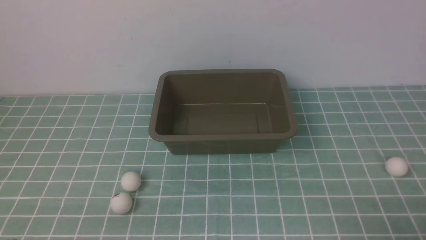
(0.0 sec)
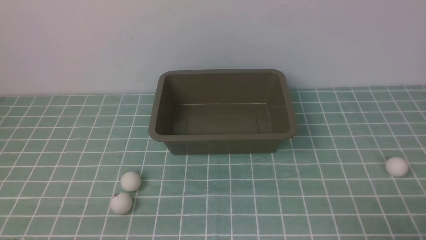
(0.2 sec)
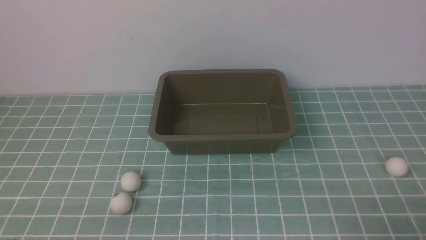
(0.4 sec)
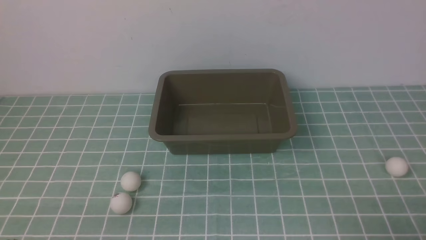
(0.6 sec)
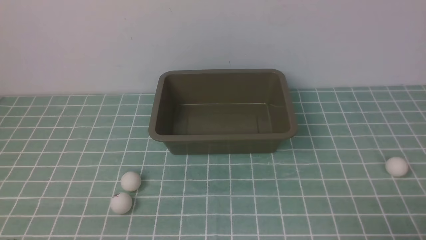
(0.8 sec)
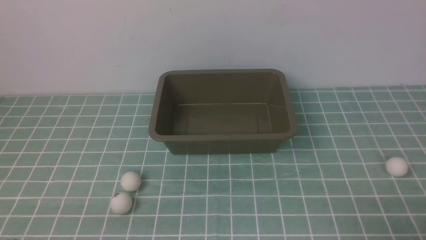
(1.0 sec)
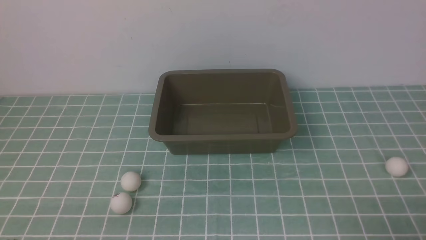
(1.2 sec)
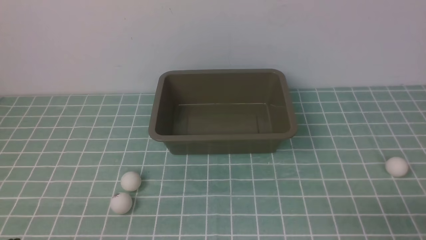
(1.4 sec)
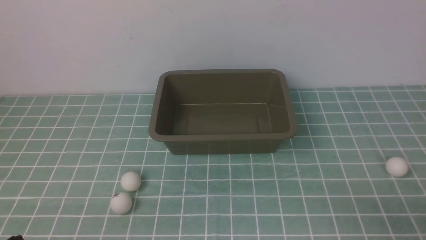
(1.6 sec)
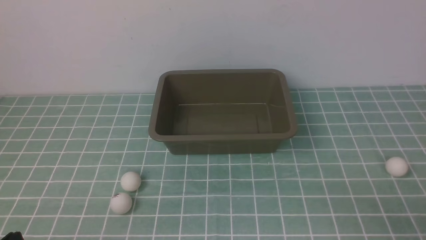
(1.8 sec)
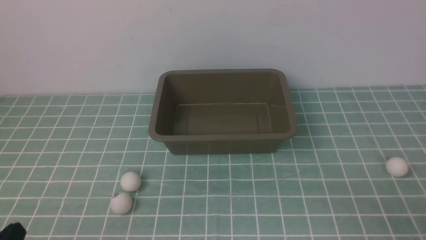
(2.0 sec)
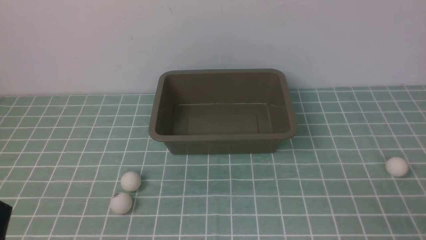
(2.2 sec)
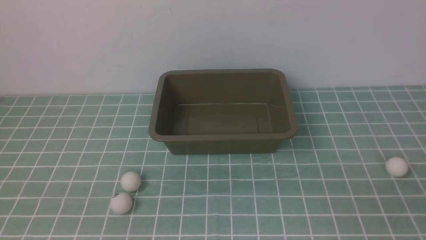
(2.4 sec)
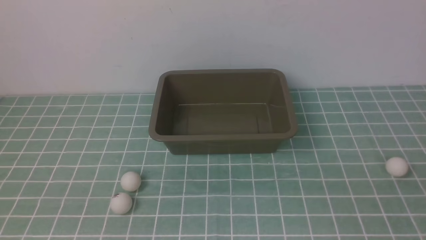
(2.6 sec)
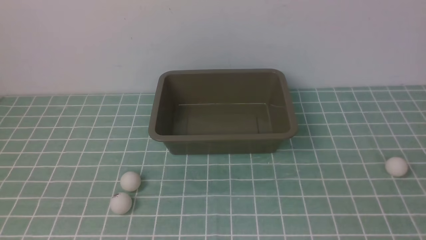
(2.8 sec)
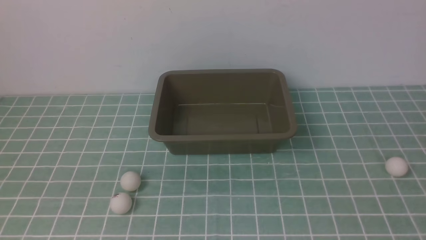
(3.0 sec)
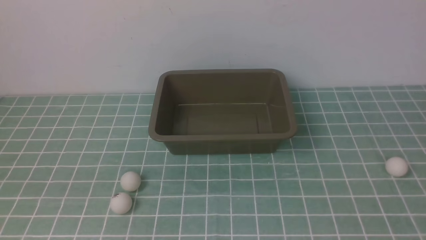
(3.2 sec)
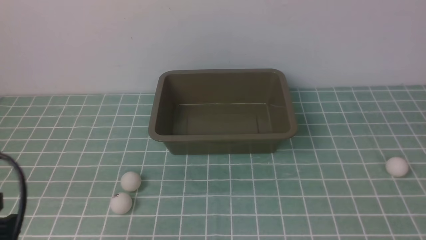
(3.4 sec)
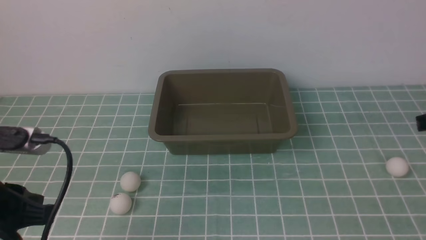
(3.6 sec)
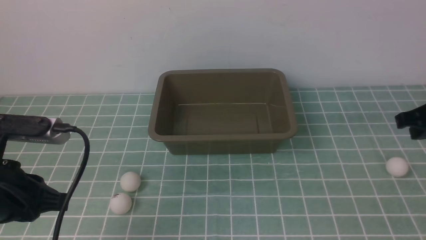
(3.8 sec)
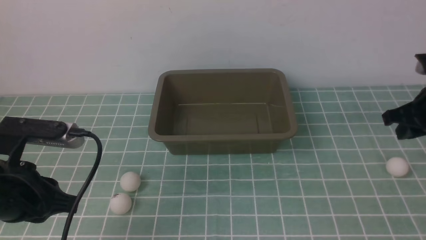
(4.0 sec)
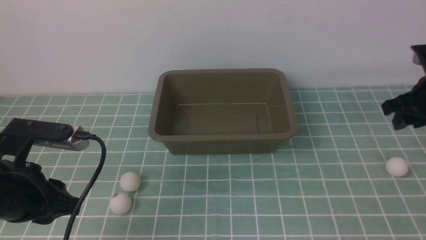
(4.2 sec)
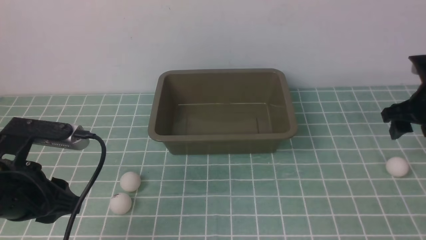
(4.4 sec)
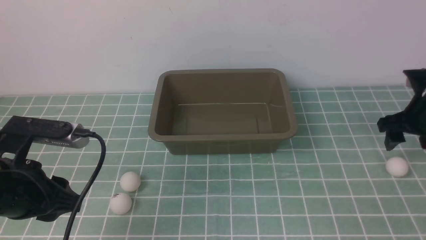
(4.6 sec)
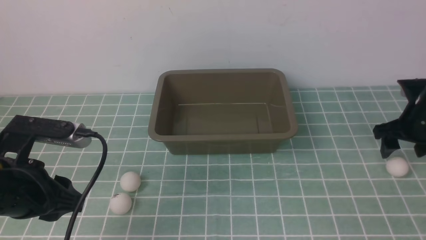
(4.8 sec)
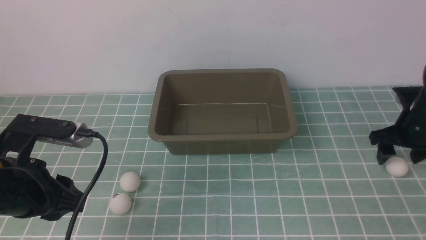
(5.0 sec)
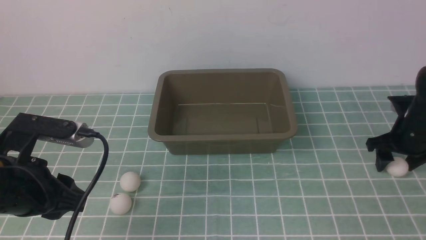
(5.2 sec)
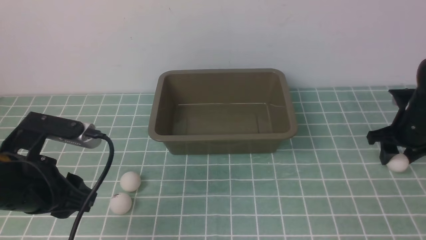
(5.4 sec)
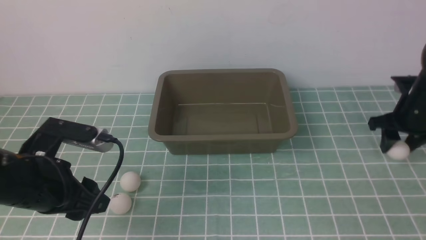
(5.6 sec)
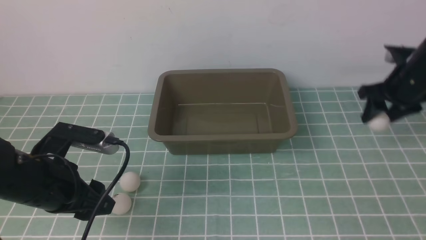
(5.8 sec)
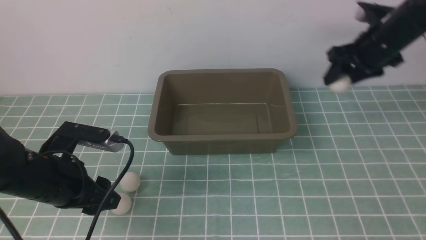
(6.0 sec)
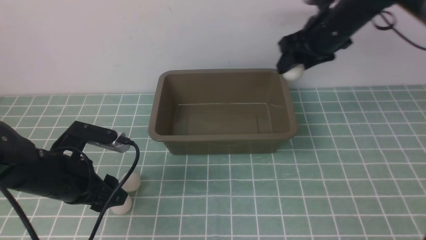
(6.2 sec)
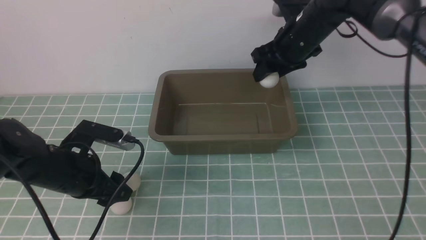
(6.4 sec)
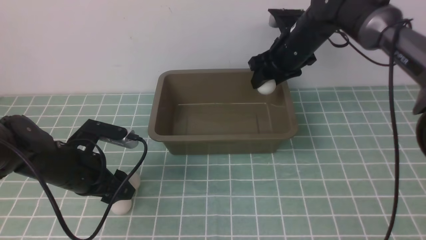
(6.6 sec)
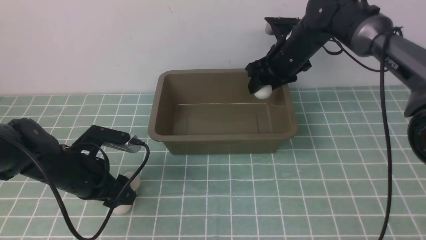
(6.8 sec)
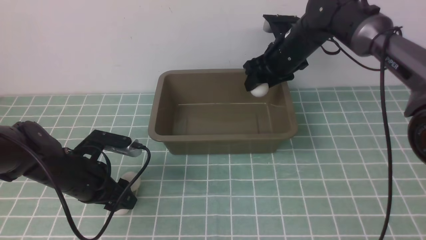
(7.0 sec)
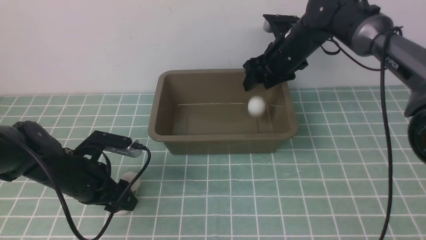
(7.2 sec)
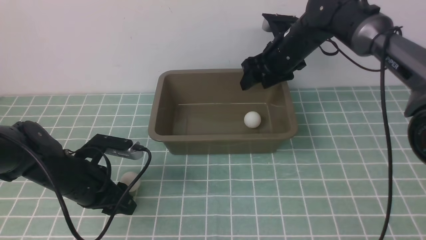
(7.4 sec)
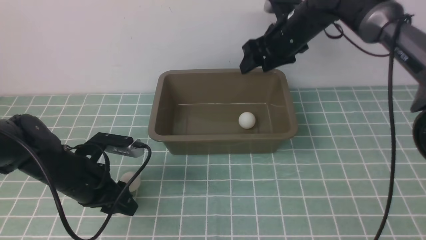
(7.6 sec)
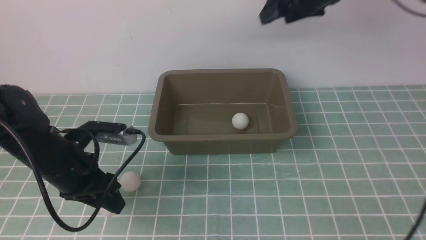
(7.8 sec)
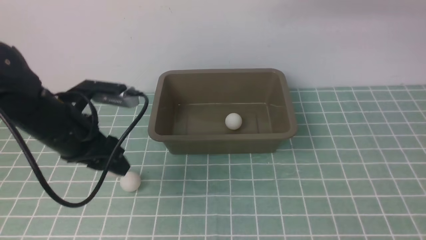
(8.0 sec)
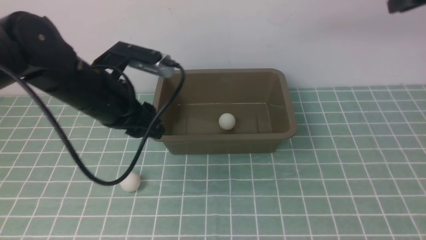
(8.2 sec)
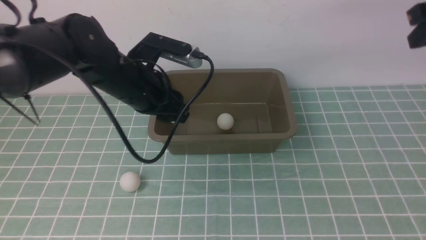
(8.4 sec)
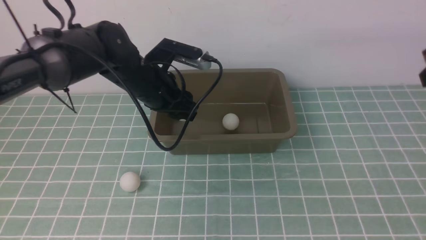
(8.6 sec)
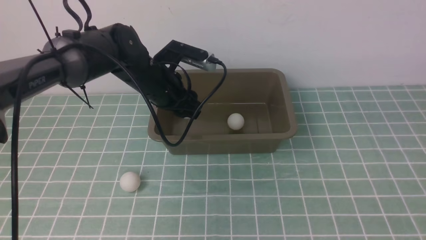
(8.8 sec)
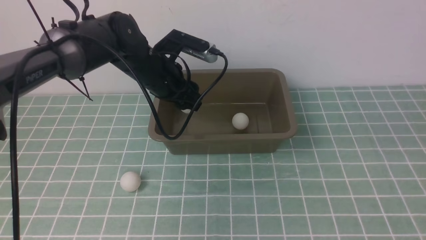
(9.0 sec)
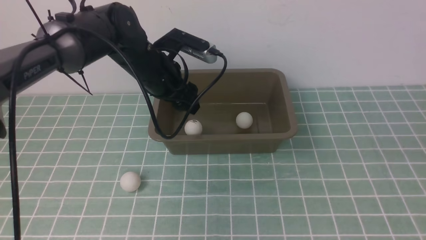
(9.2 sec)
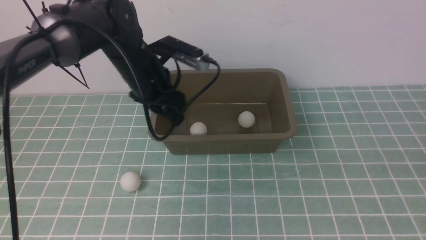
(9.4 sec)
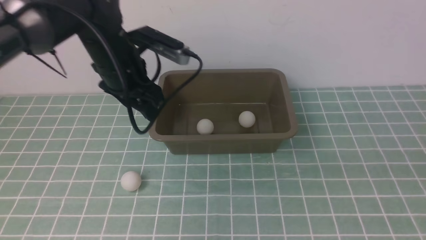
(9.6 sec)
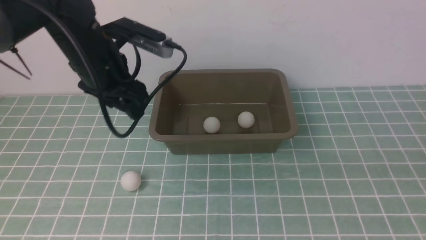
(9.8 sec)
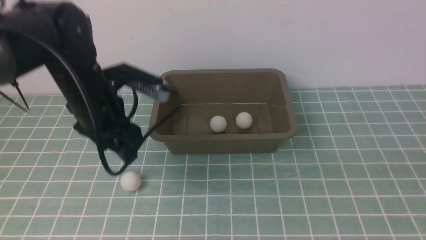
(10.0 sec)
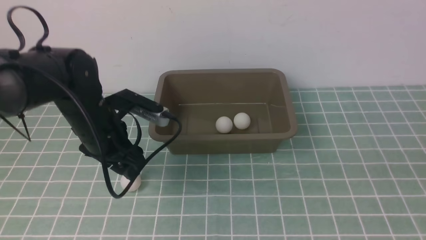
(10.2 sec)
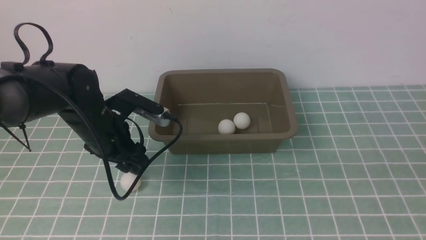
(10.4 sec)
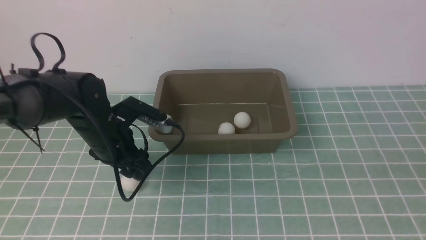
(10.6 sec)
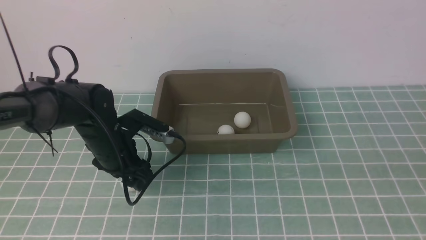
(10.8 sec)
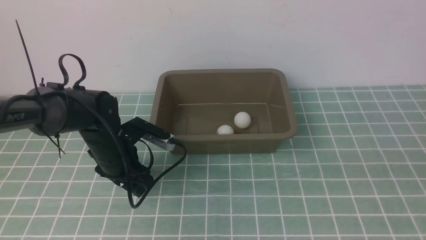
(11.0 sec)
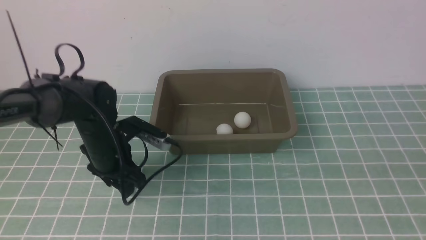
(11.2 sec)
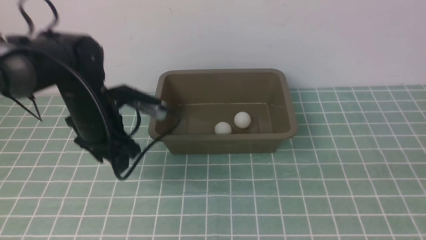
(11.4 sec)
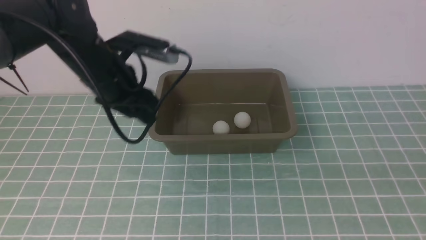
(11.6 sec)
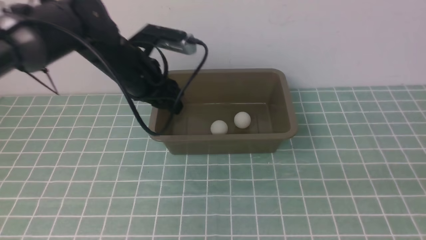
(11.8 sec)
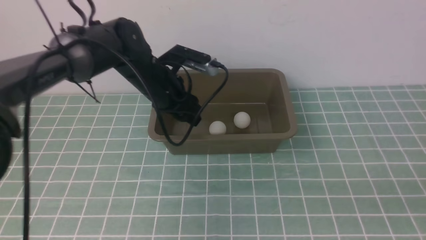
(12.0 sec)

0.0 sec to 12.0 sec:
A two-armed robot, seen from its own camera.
Step, 0.0 sec to 5.6 sec: use the right arm to clamp the table tennis ball closest to it.
Step, 5.8 sec to 7.4 sec: use the right arm to put the table tennis ball into the box.
Step, 7.6 sec to 8.0 sec: use the left arm to clamp the table tennis ball closest to it.
Step, 8.2 sec to 9.2 sec: use the left arm to put the table tennis ball into the box.
Step, 9.4 sec to 11.4 sec: use the left arm to clamp the table tennis ball closest to it.
3.0 sec to 4.4 sec: The left gripper heads forward, covering approximately 15 cm, and opens its fingers. The right gripper shifts about 35 cm forward and downward, and opens.
4.4 sec to 6.0 sec: The left gripper is displaced downward and forward by approximately 10 cm, and opens its fingers, while the right gripper shifts approximately 15 cm to the left, forward and upward.
6.0 sec to 7.6 sec: The right gripper moves to the left and upward, about 10 cm.
7.6 sec to 9.0 sec: The right gripper is displaced backward by about 35 cm, and closes; the left gripper heads forward, to the right and upward, covering some 15 cm.
9.0 sec to 10.4 sec: The left gripper travels downward, backward and to the left by about 15 cm.
10.4 sec to 12.0 sec: The left gripper moves upward, forward and to the right, about 15 cm, while the right gripper travels backward by approximately 5 cm.

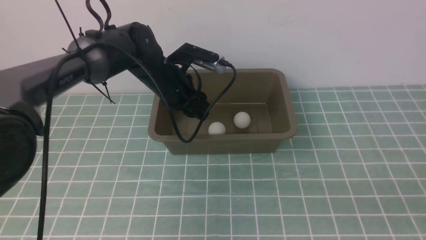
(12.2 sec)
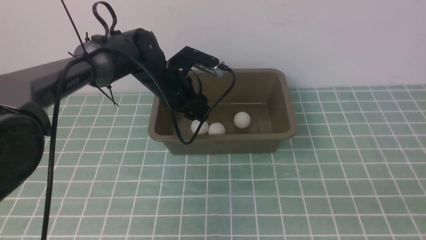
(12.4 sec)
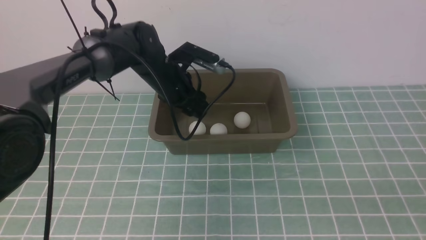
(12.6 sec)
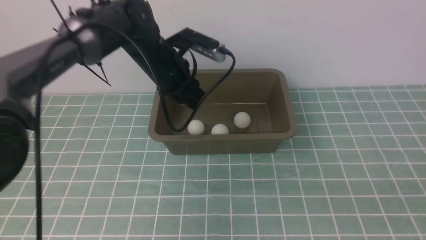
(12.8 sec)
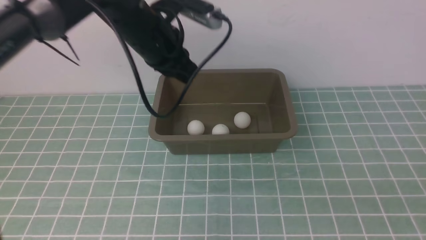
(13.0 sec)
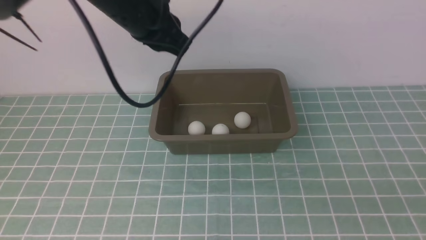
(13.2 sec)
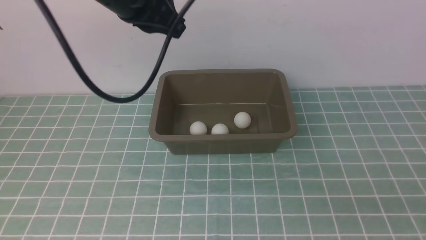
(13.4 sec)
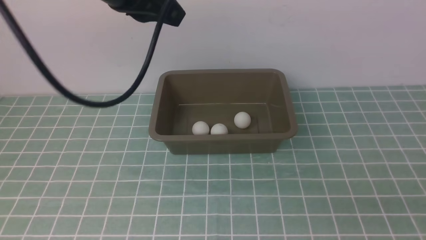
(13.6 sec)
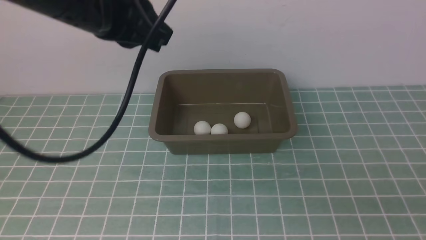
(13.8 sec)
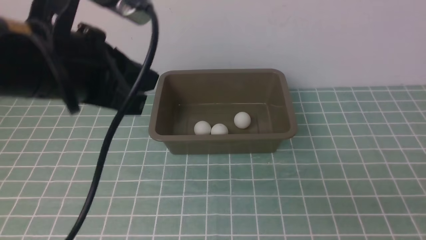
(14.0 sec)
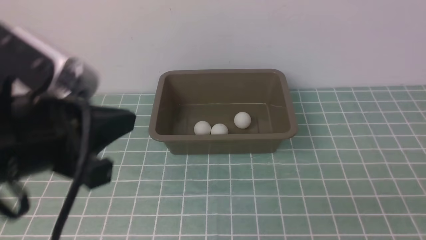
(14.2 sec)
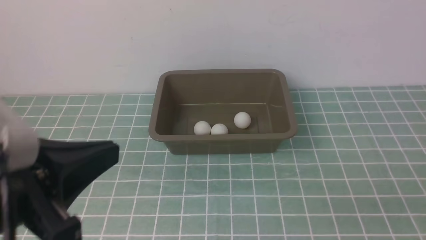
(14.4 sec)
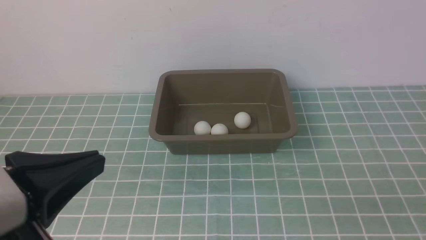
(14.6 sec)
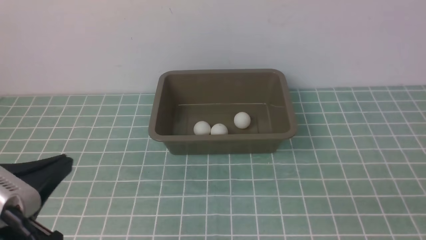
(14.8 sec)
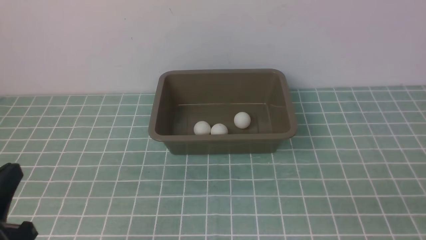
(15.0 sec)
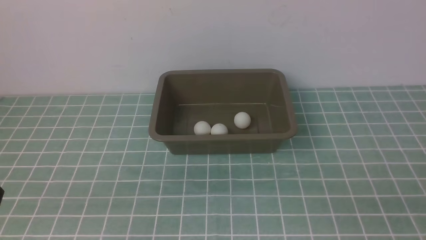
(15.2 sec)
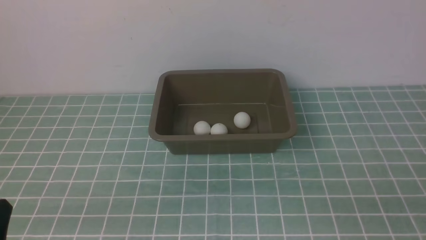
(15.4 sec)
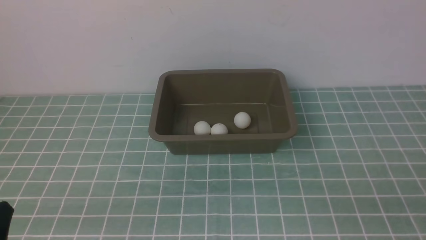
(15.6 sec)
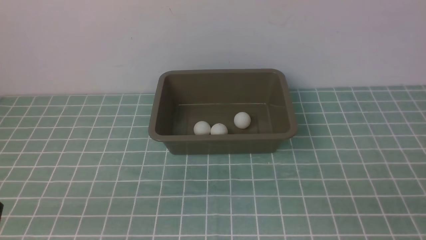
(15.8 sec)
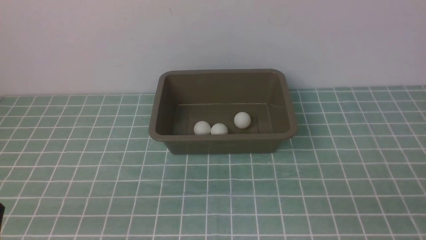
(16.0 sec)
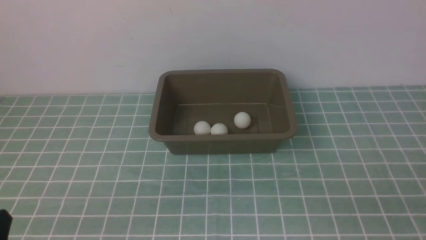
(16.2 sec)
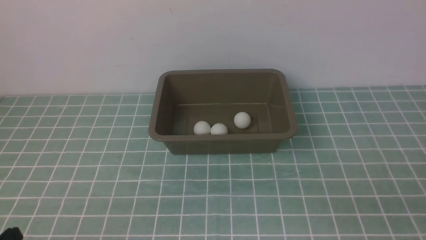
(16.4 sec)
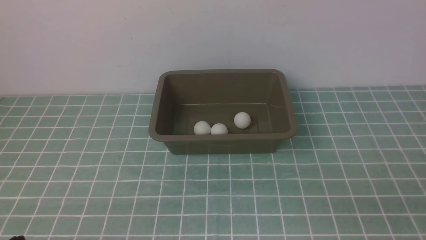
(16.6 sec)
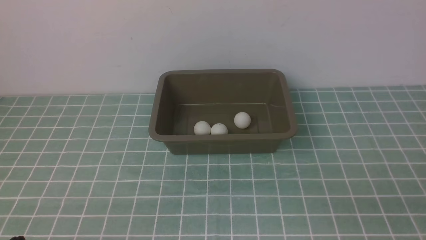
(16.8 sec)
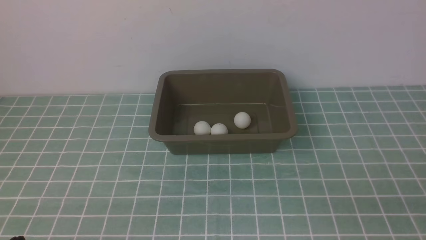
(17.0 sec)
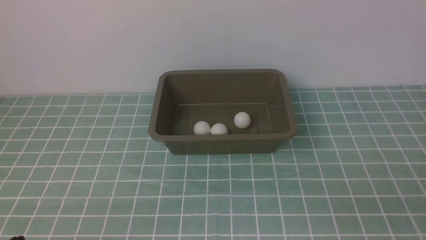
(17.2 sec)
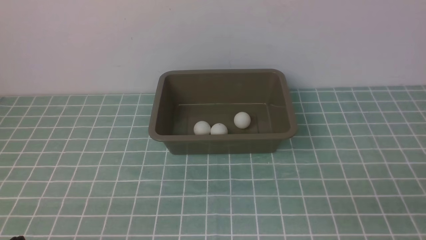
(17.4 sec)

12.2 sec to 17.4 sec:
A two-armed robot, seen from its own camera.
12.2 sec to 14.0 sec: The left gripper moves backward and to the left, some 35 cm.
14.0 sec to 15.6 sec: The left gripper travels downward by roughly 10 cm.
